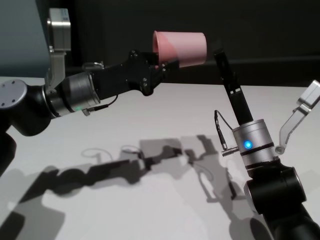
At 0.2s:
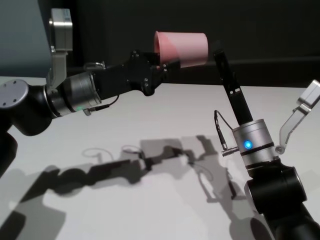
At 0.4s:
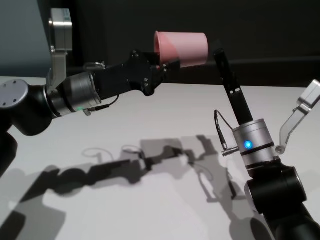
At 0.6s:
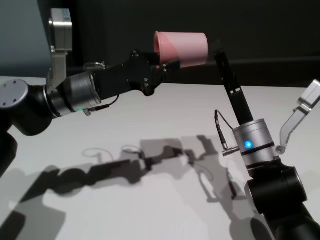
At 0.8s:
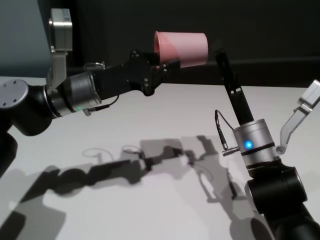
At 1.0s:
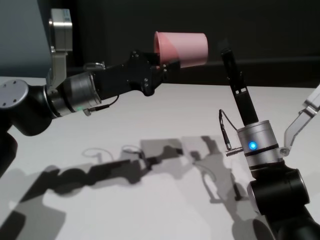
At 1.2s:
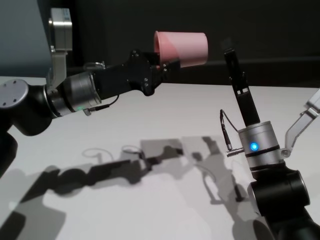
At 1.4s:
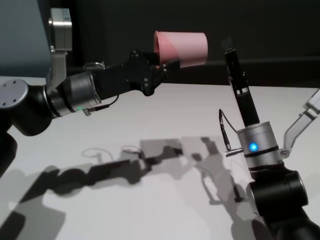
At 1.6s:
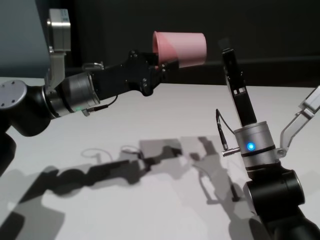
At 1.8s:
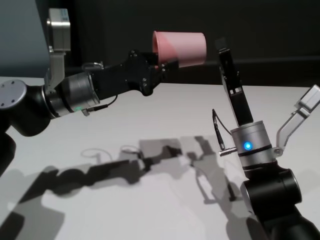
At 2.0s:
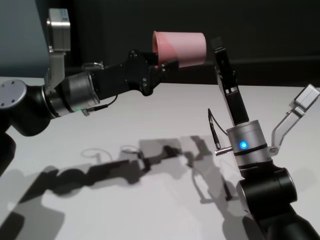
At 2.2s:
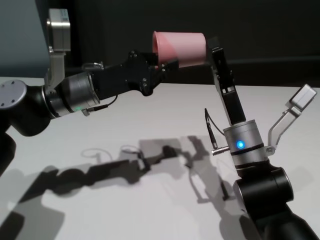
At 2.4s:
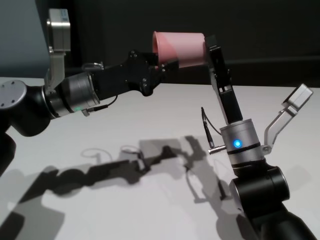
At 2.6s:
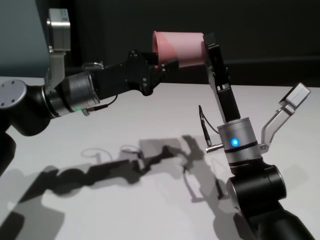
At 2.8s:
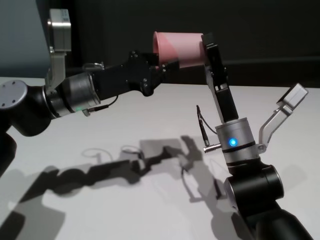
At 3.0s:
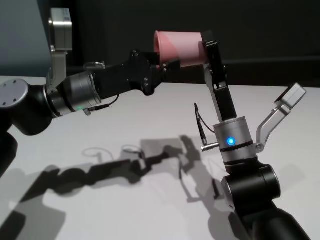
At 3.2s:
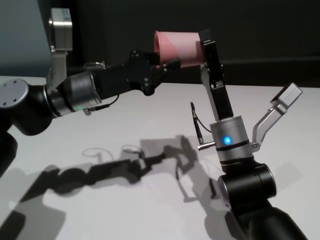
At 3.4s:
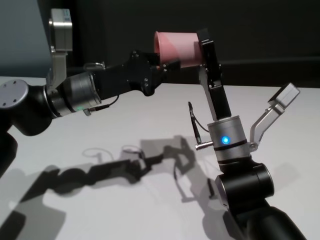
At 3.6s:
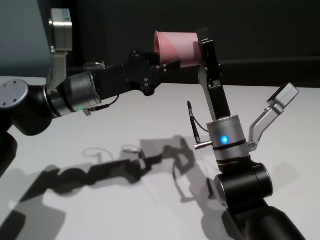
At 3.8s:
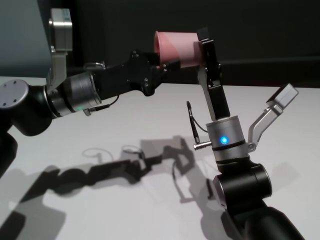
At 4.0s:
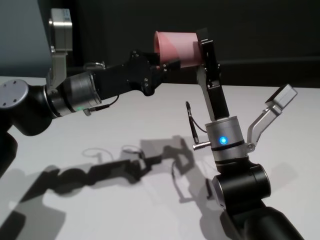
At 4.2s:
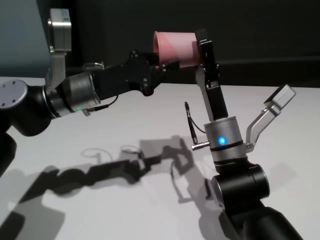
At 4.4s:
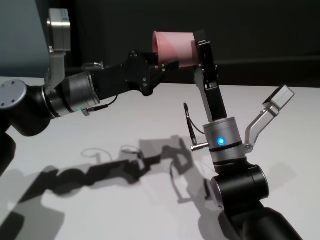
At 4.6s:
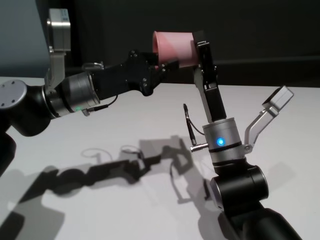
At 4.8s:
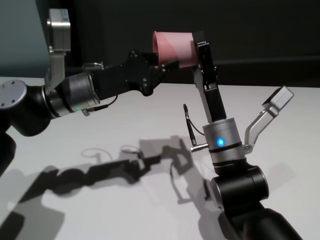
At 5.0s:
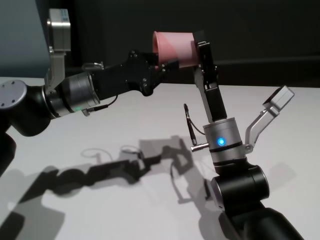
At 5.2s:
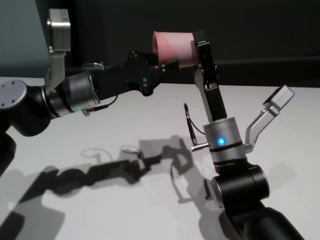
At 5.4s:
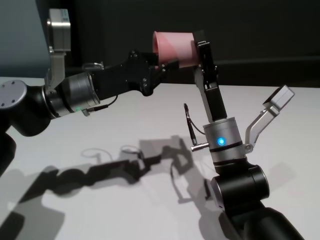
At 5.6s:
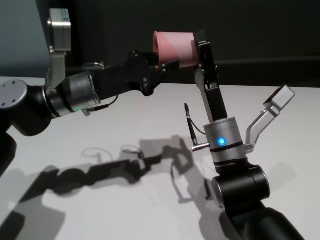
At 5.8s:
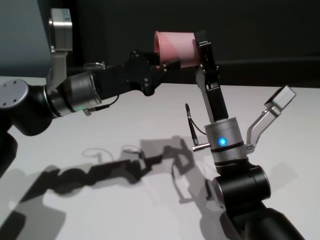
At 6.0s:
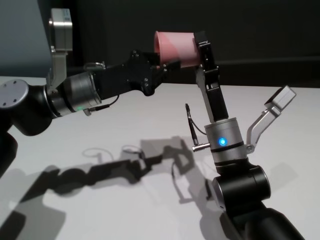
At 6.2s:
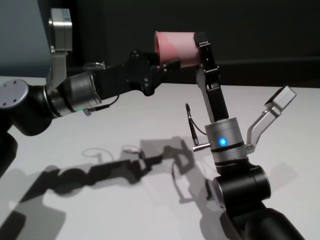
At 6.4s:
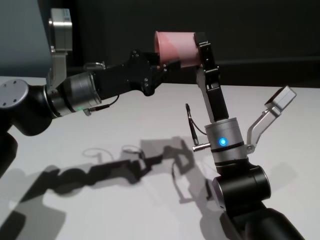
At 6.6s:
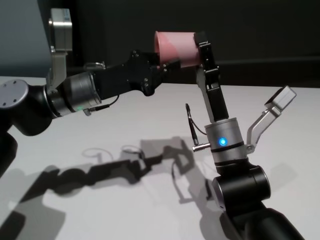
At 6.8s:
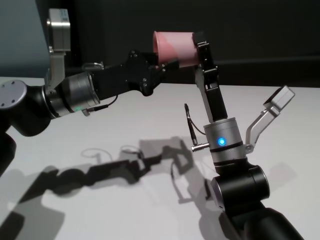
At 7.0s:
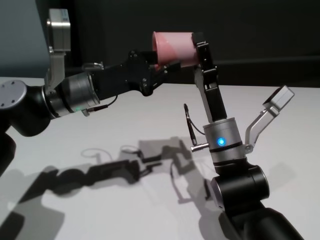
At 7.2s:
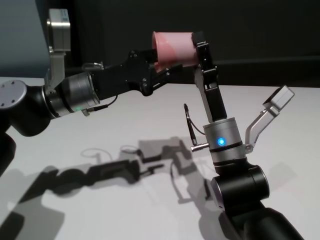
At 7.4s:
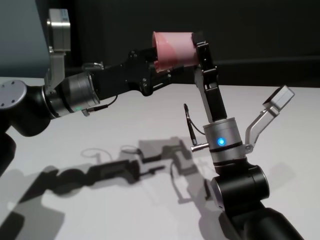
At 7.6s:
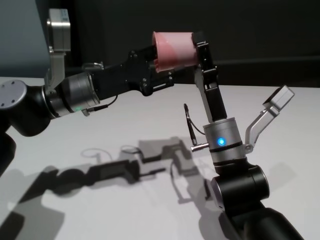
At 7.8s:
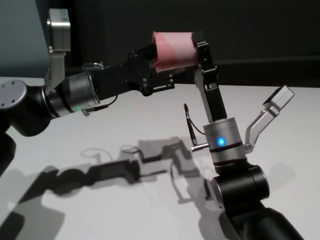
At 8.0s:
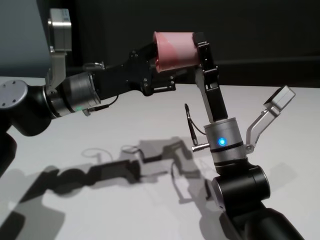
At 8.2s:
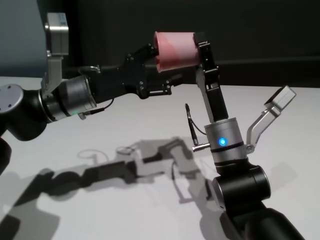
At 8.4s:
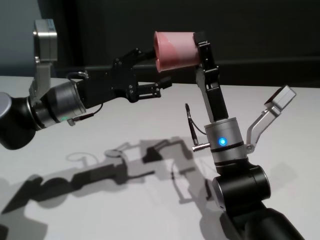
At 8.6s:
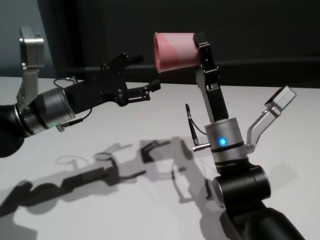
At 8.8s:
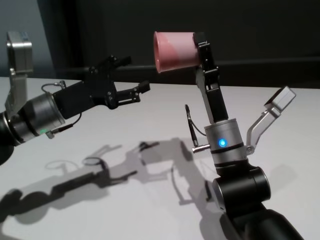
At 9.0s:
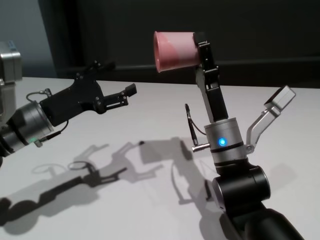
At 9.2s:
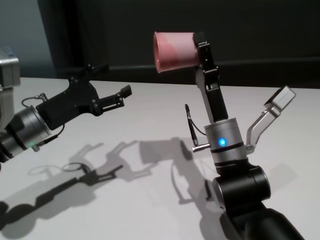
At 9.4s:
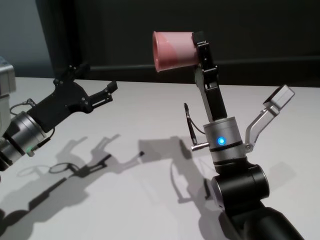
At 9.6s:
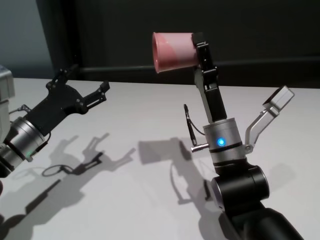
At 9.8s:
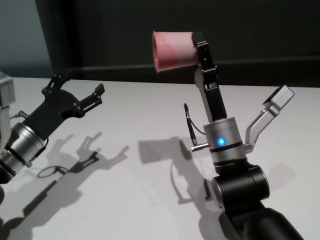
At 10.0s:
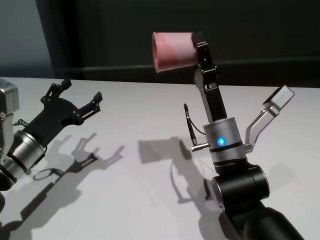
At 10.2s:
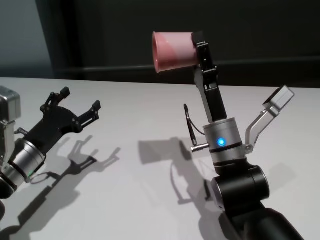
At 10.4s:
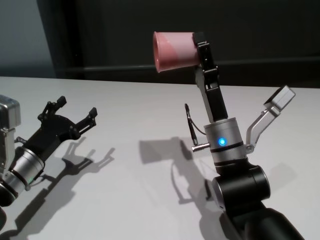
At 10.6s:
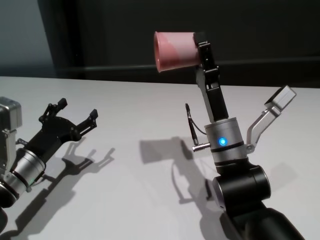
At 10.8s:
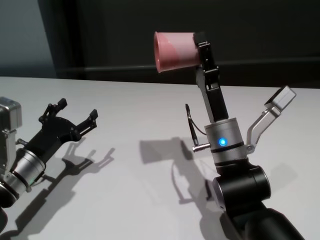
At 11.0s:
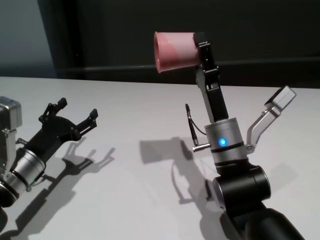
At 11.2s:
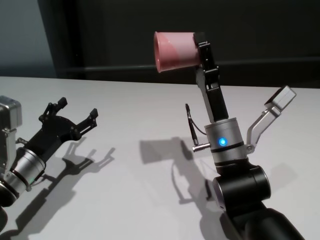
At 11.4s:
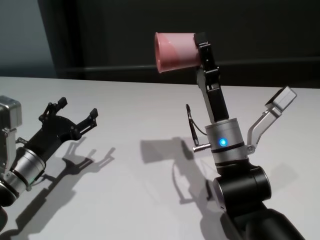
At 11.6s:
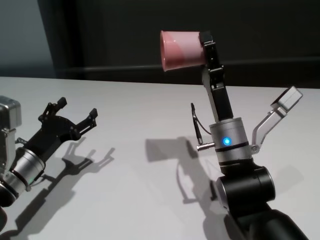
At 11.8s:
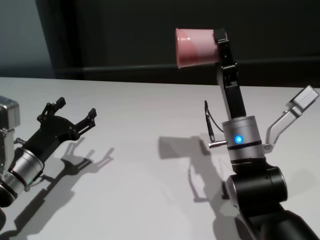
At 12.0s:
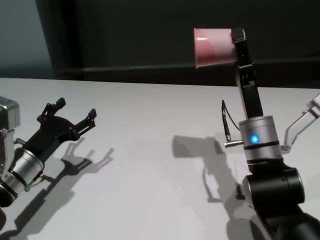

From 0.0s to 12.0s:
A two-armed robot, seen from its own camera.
Task of the whole recording: On the white table pick up the cup with one hand and transfer it to the other hand before turning it over.
Step, from 0.0s to 8.4s: Pass the cup to the right gripper.

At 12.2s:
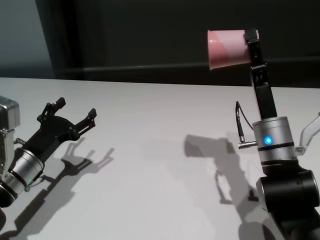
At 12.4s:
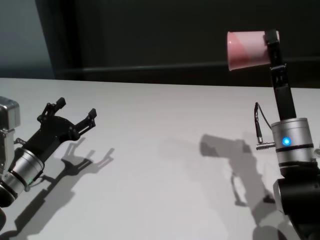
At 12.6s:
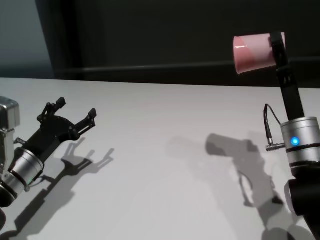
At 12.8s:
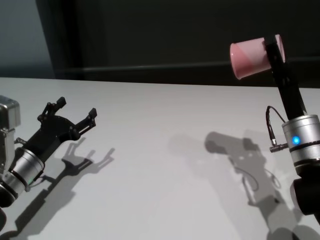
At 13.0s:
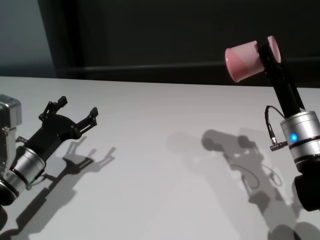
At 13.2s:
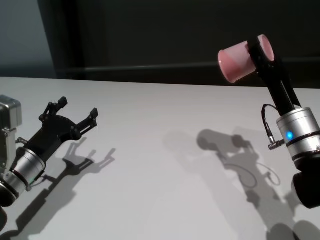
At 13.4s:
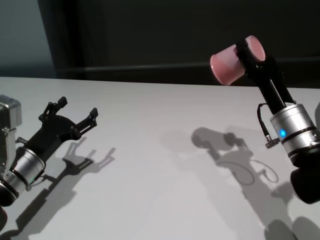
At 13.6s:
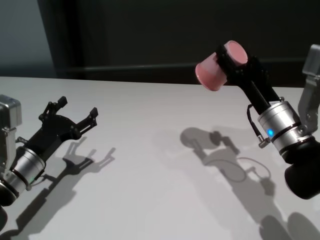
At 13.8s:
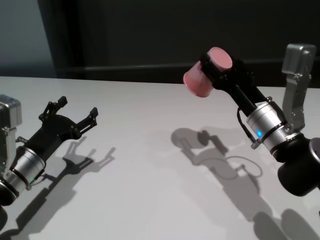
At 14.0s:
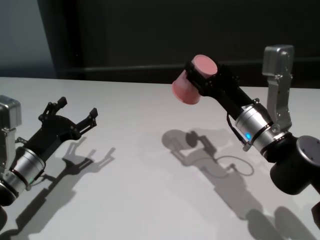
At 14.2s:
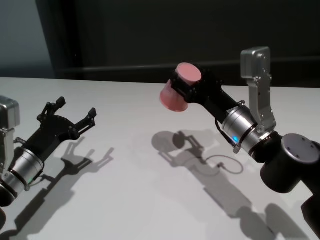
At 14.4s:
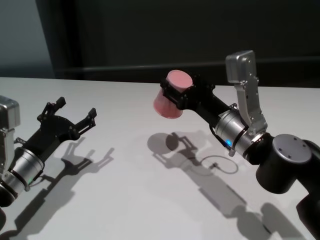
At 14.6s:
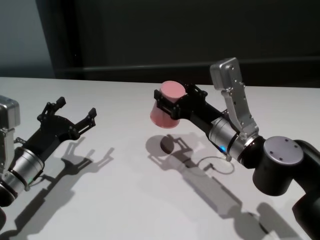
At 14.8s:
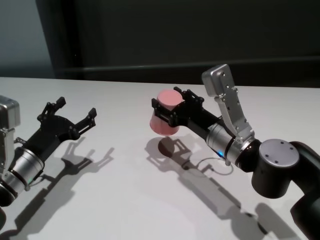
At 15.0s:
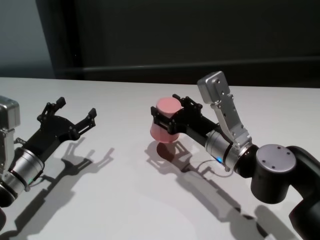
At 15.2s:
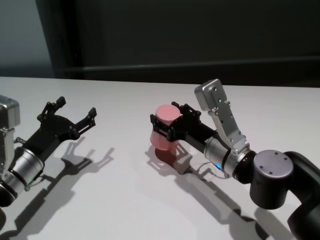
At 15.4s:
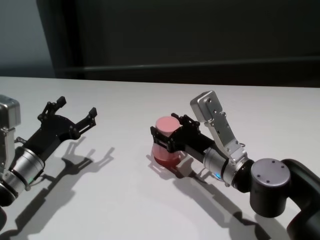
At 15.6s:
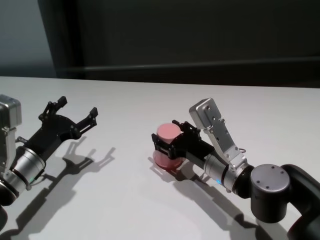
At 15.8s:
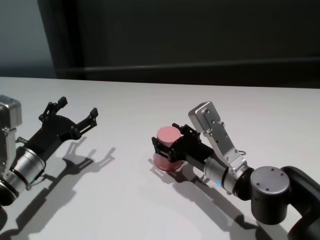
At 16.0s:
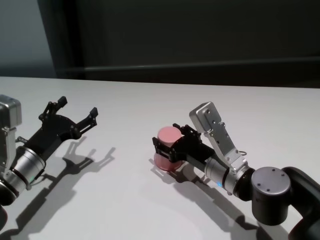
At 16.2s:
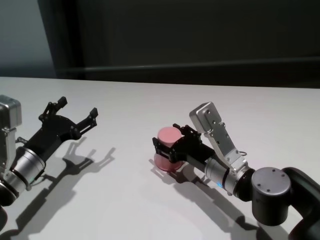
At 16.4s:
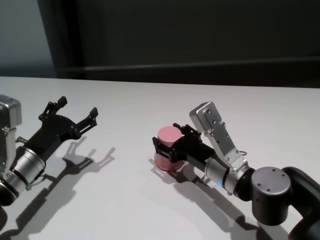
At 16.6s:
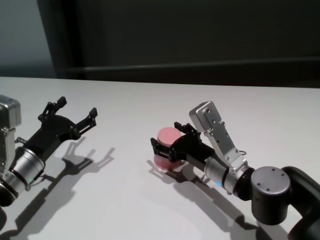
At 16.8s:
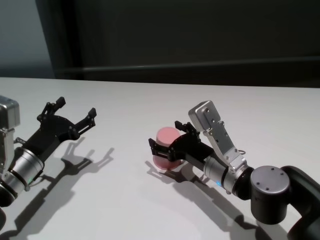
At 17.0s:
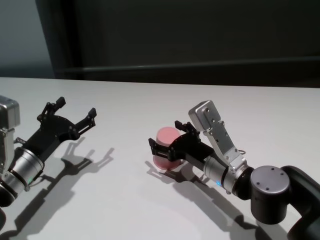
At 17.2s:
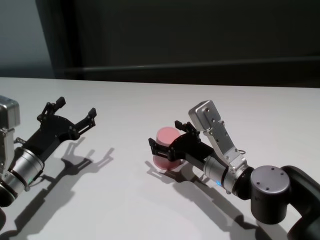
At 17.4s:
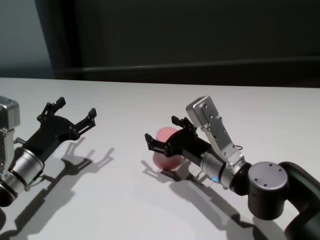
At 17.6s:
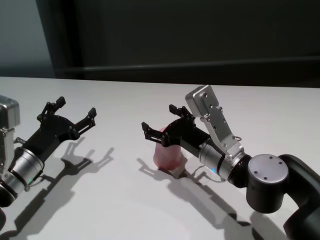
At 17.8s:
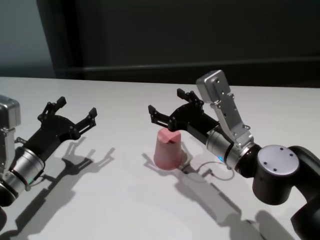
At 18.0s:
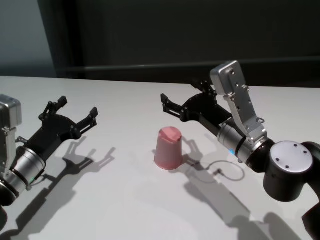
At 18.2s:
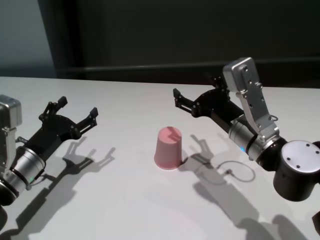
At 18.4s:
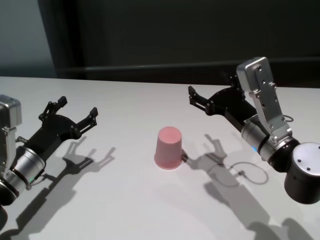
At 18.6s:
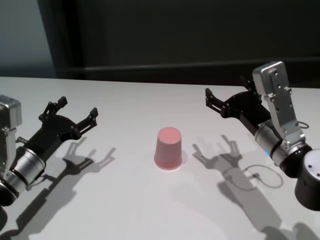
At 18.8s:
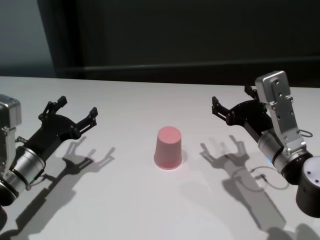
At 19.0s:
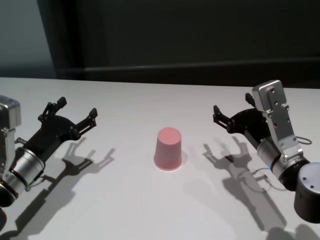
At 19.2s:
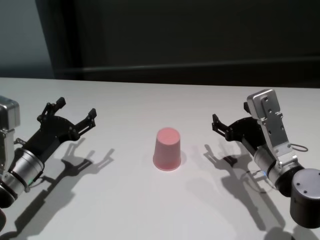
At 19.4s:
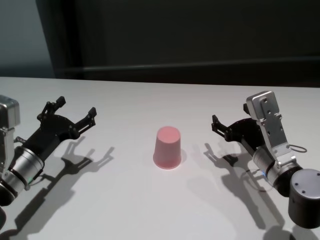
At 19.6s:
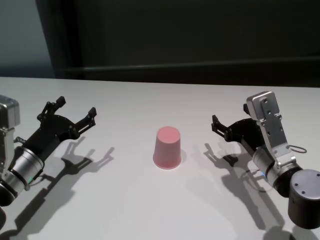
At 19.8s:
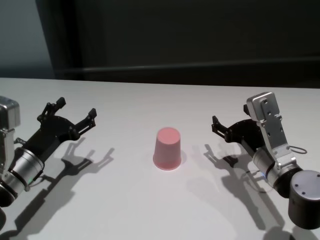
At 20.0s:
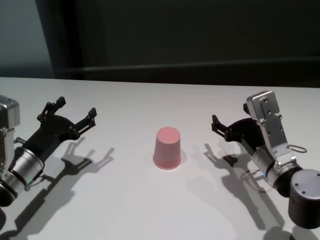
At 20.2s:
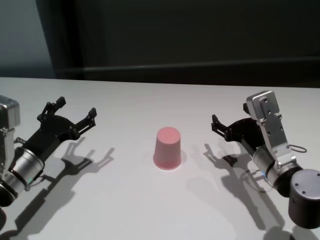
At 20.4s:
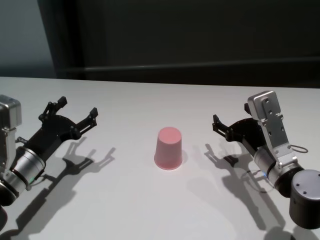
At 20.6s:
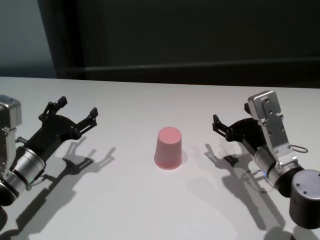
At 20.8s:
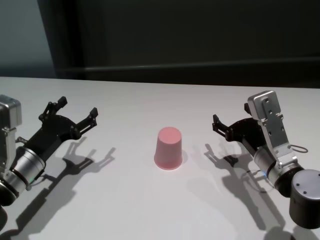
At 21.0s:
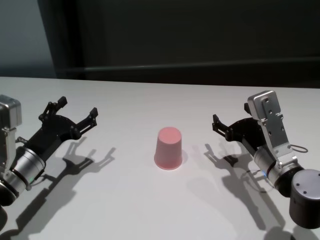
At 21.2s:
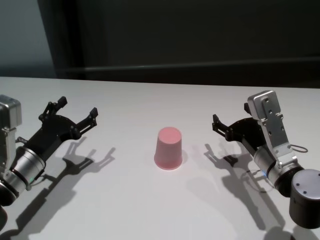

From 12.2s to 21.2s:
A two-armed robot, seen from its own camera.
Task of the whole recording: On the white table pick up the cup with one hand and transfer it to the other hand before turning it over.
Step, from 12.2s to 17.2s: Place the cup on the table with right gripper.

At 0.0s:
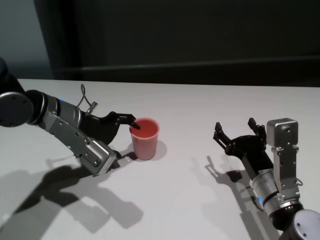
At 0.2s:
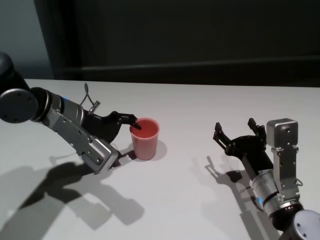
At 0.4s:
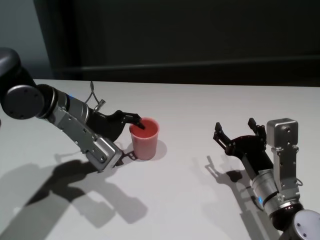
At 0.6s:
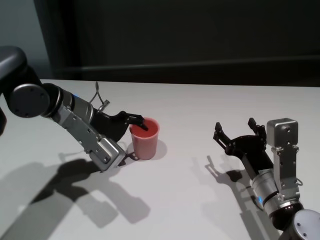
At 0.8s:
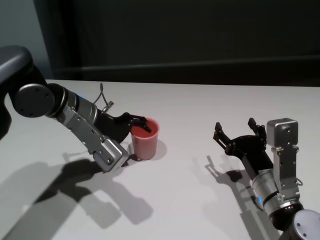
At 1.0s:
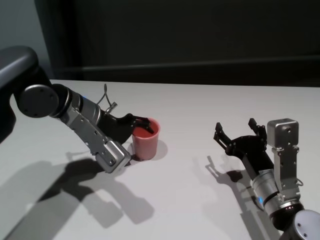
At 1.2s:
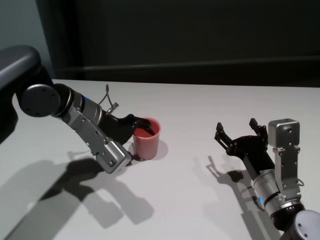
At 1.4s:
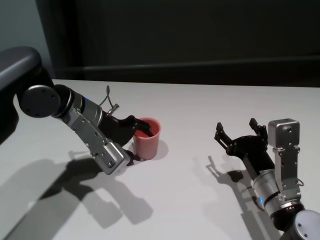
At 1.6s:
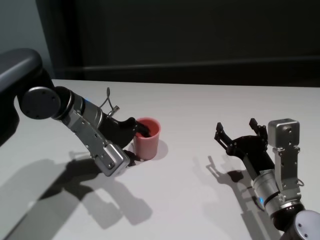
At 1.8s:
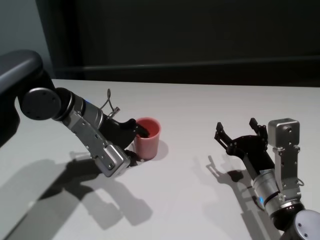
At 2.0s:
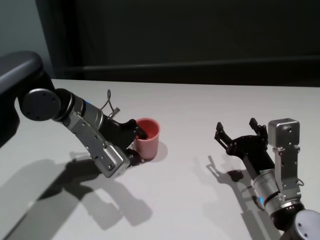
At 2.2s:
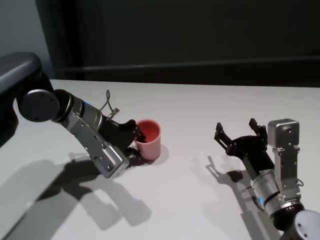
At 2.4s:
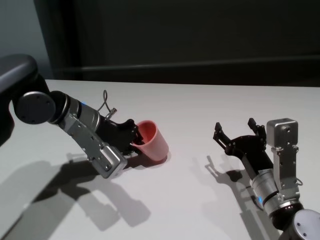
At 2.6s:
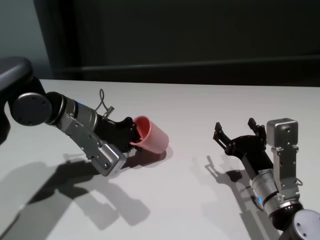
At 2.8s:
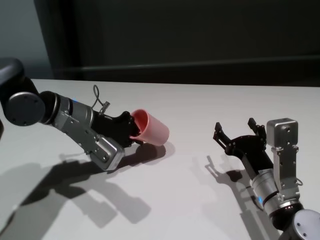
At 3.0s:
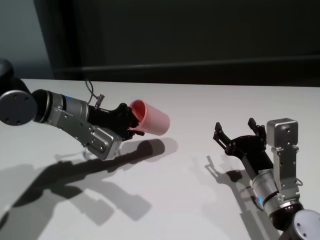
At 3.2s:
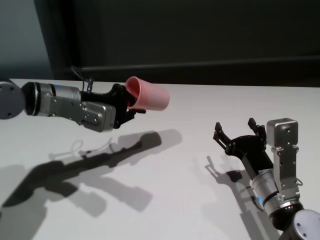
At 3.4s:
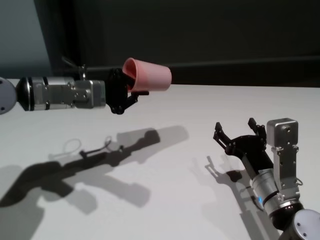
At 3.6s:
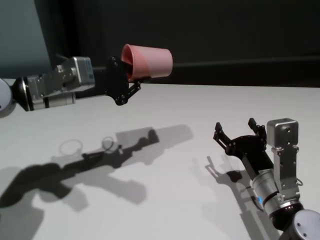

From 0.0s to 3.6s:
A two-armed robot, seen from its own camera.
Task of the whole recording: On the white table pick up the cup with one hand and transfer it to the other hand before turning it over.
Step, from 0.0s to 2.2s: Grasp the cup with left gripper.
